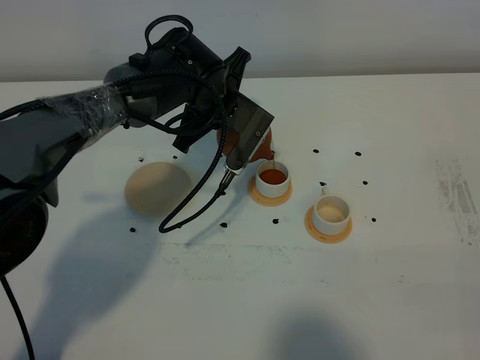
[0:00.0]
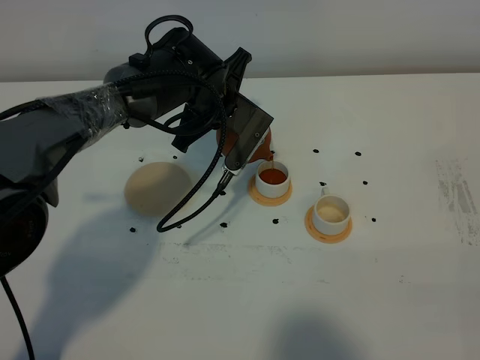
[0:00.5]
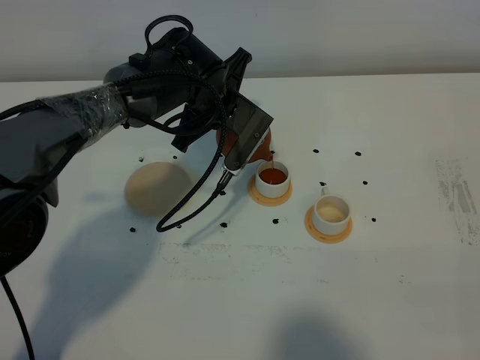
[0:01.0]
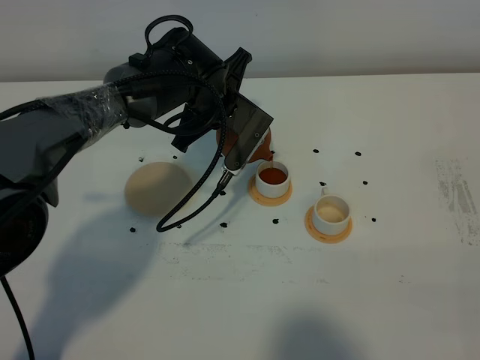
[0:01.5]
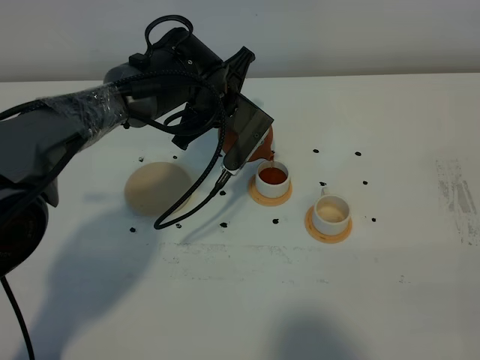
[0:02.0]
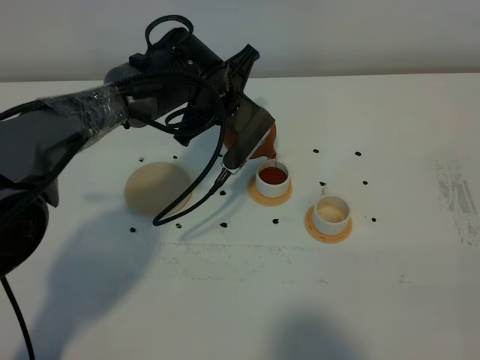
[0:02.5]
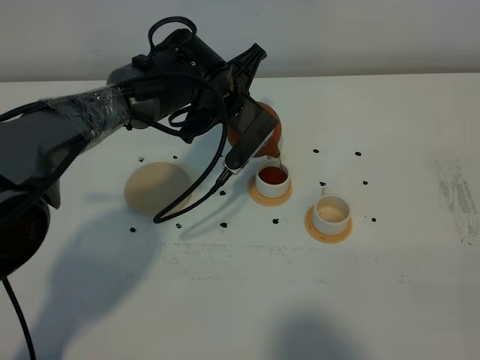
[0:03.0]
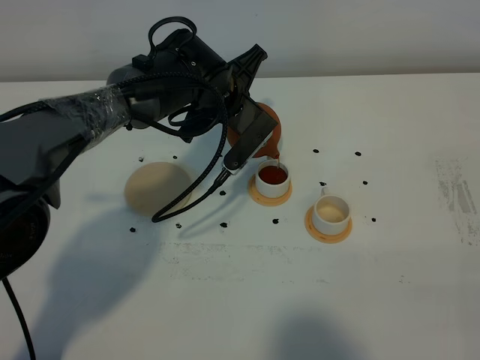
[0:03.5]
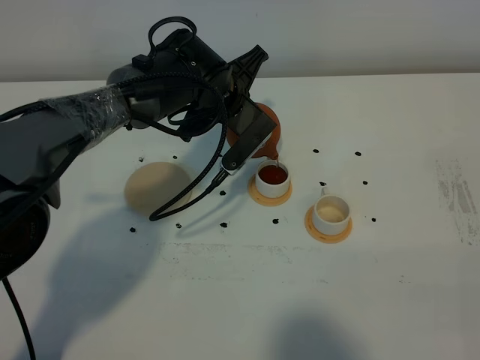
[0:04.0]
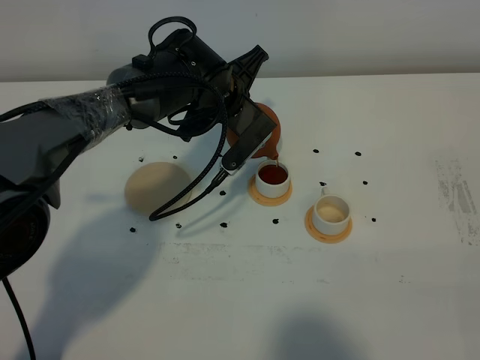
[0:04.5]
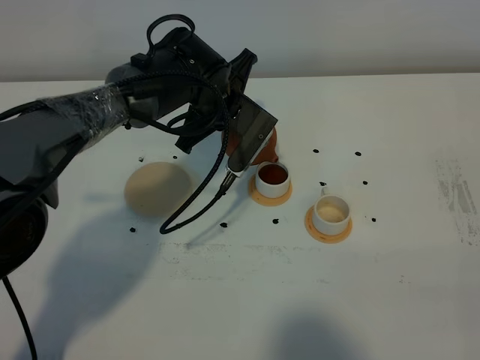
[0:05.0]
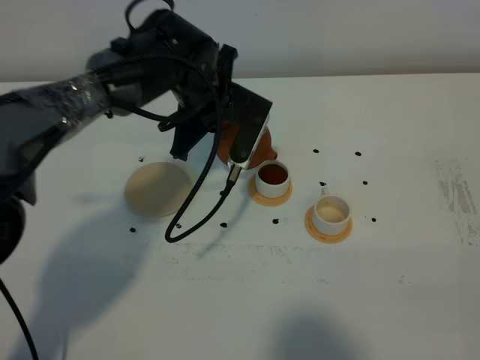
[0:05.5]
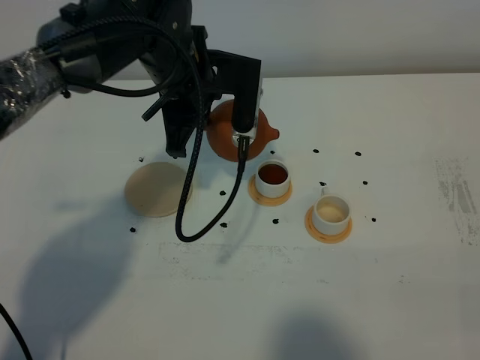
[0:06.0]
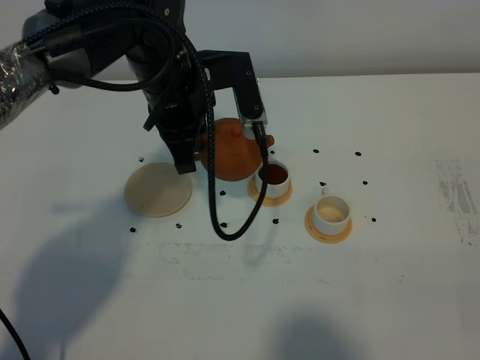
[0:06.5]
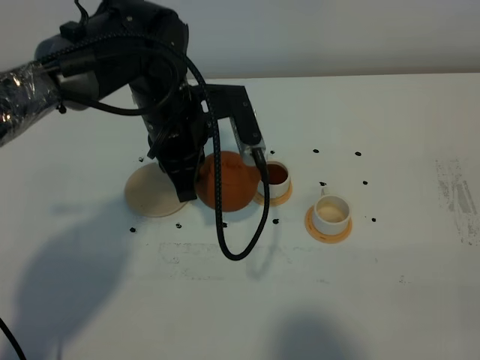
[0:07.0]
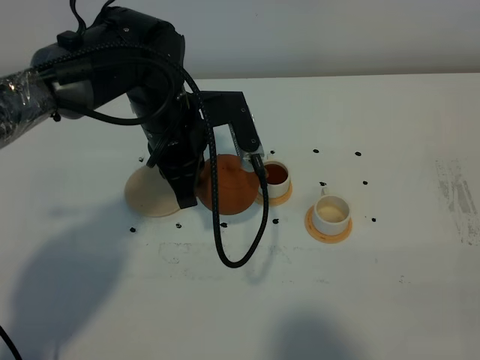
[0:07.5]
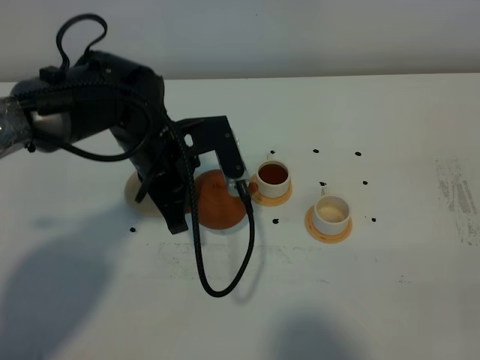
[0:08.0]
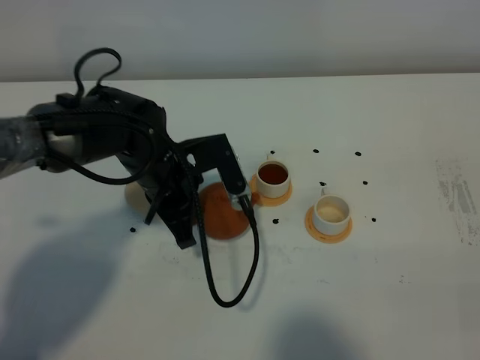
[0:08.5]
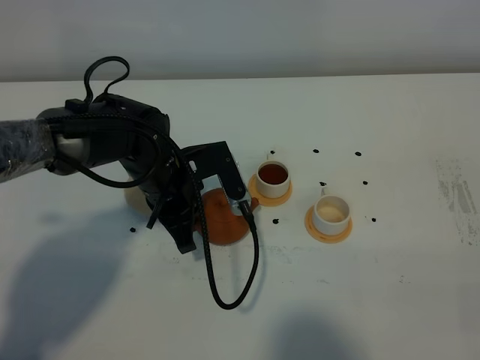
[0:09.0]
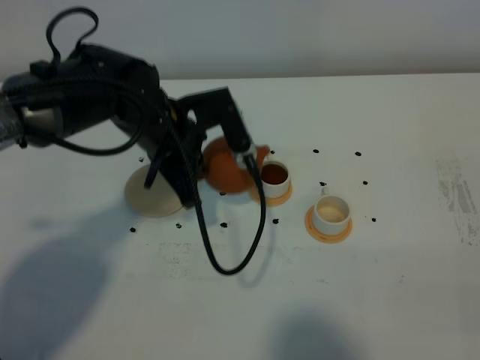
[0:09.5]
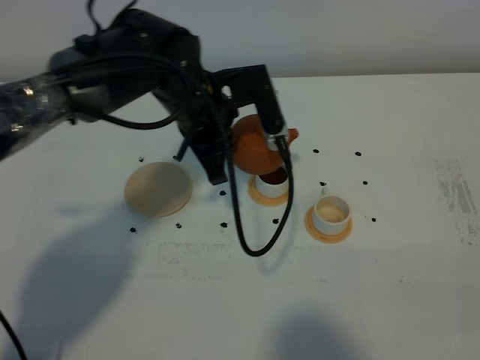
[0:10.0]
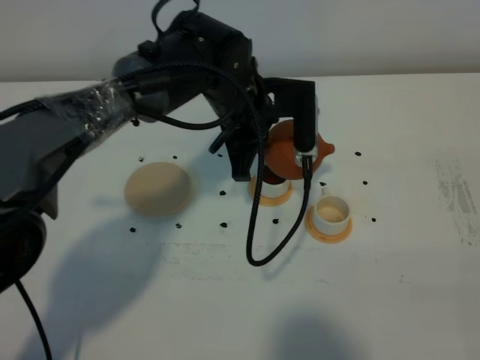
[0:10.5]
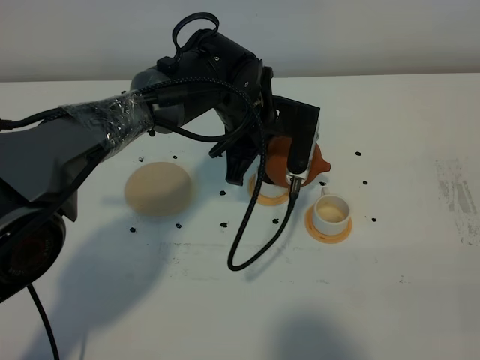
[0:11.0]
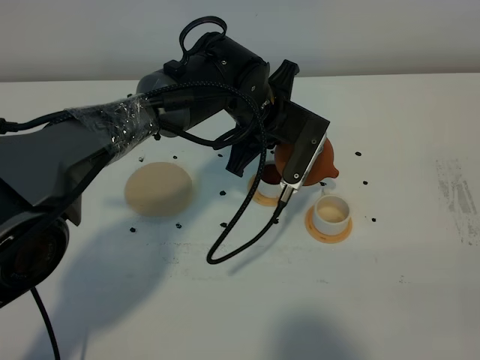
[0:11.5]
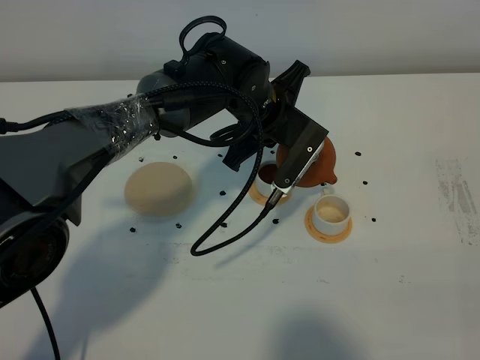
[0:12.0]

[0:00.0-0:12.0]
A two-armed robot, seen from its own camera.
Task of the whole recording: grasp the brown teapot and pour the tea into the two white teacups one by one, put the brown teapot back in its original place.
0:00.0 to 0:02.0: Both grippers stay about where they are.
0:02.0 to 0:04.0: There are only small adjustments of the grippers.
0:04.0 to 0:06.0: The left gripper shifts some 5 cm upward.
0:06.0 to 0:08.0: The left gripper moves downward and backward, about 10 cm.
0:08.0 to 0:10.0: The left gripper shifts some 5 cm to the right.
0:10.0 to 0:12.0: The left gripper shifts roughly 5 cm to the right.

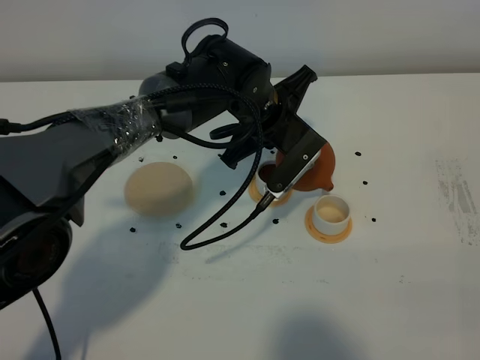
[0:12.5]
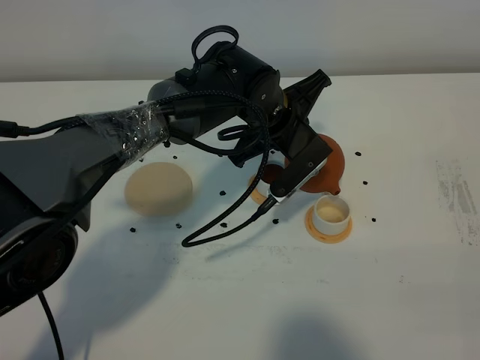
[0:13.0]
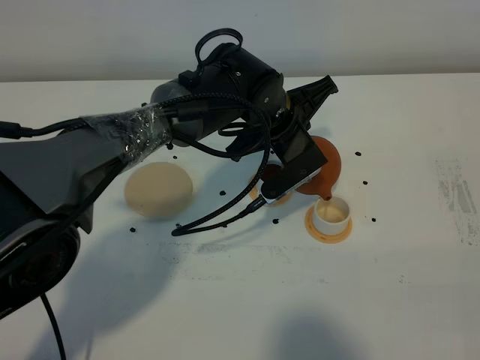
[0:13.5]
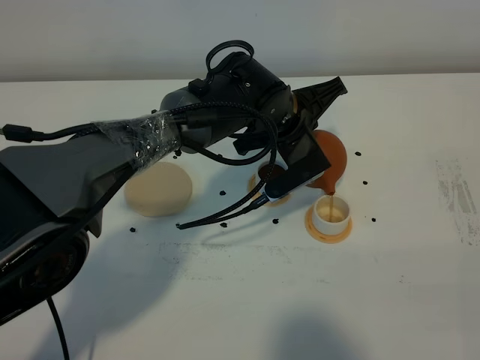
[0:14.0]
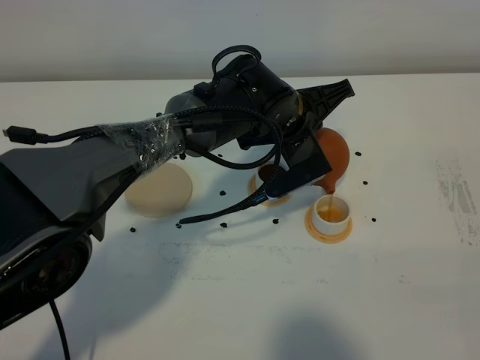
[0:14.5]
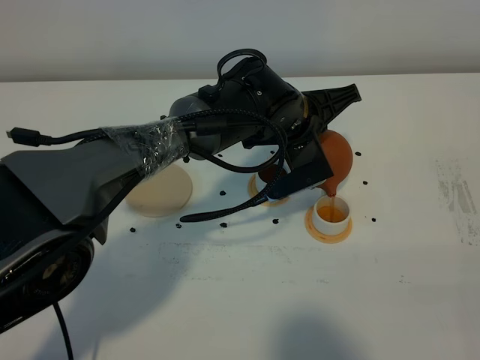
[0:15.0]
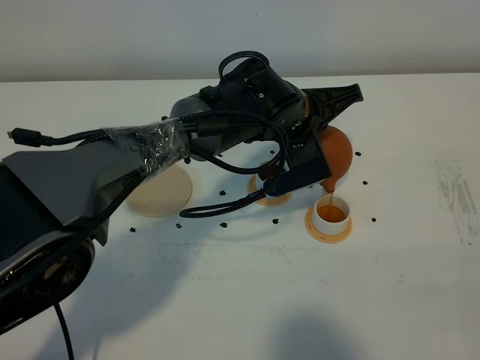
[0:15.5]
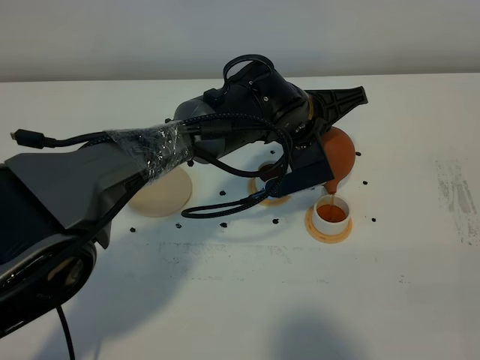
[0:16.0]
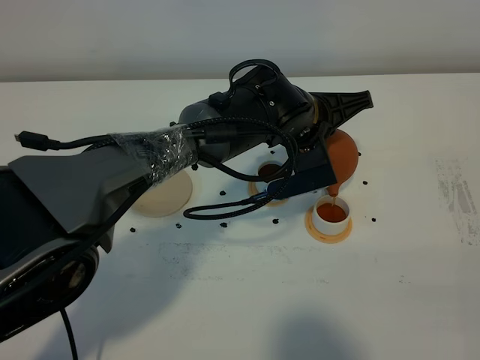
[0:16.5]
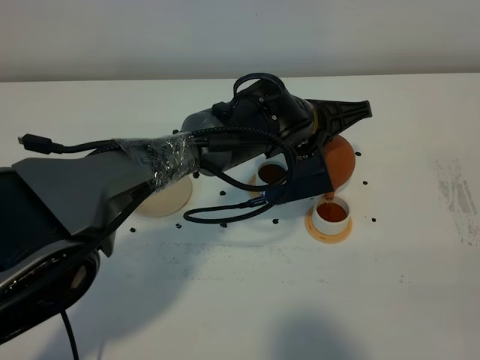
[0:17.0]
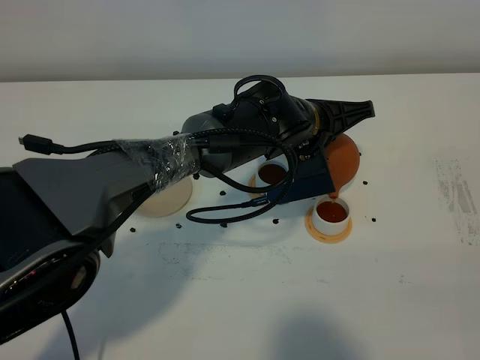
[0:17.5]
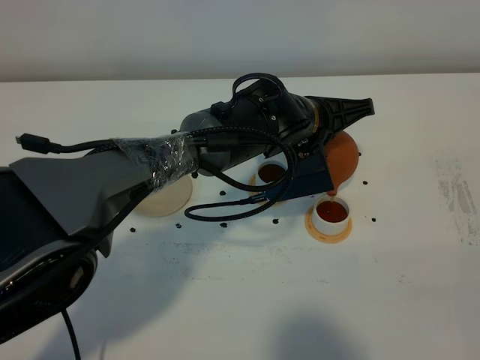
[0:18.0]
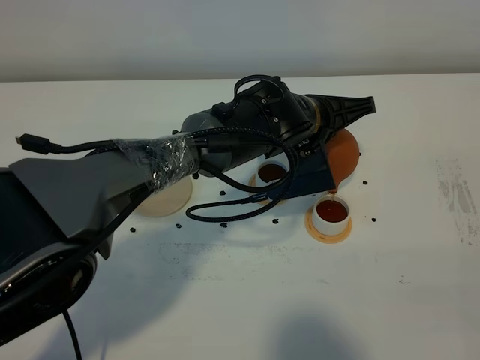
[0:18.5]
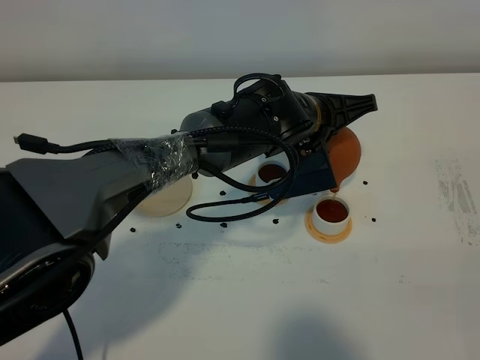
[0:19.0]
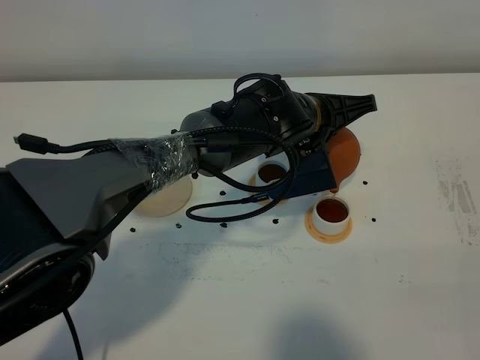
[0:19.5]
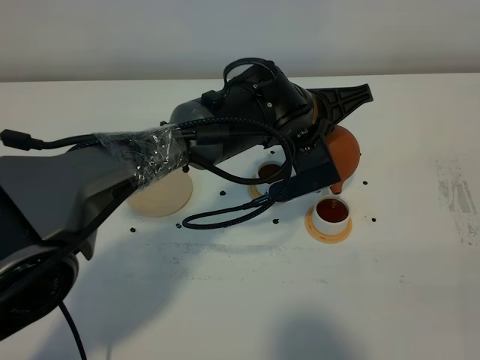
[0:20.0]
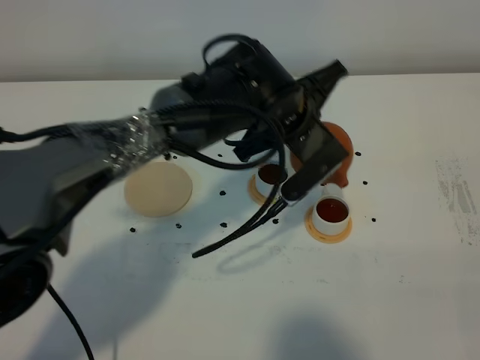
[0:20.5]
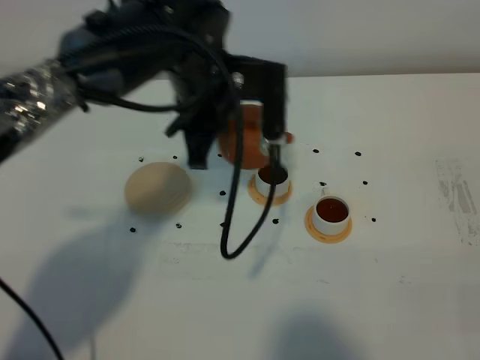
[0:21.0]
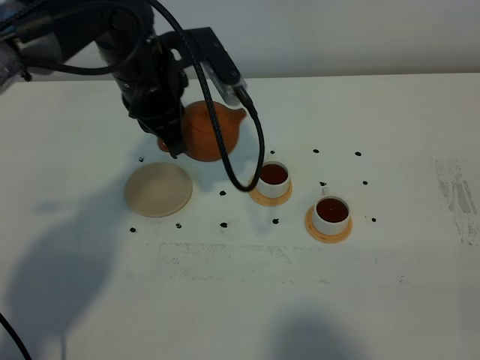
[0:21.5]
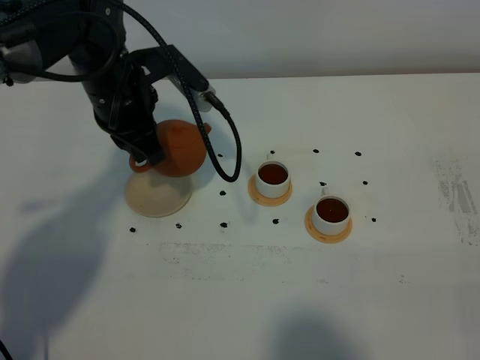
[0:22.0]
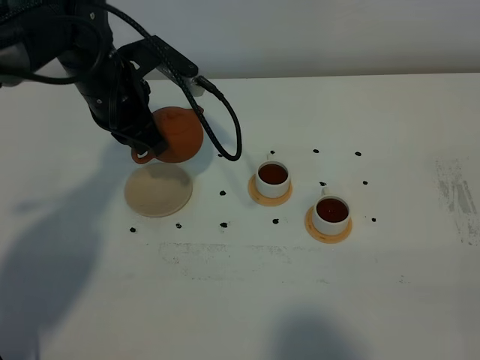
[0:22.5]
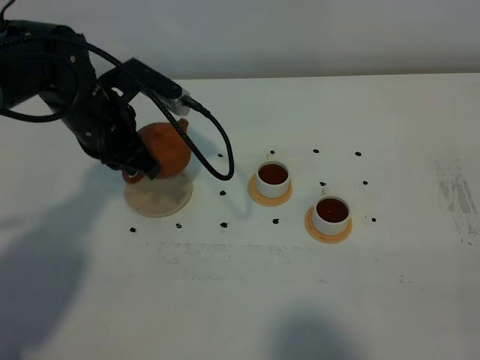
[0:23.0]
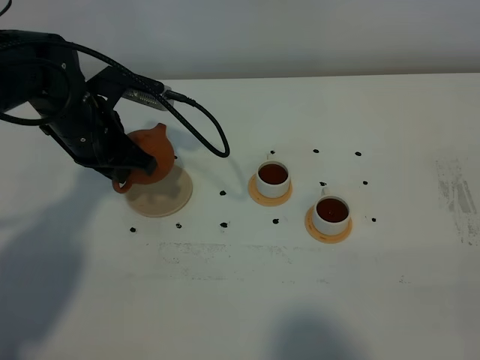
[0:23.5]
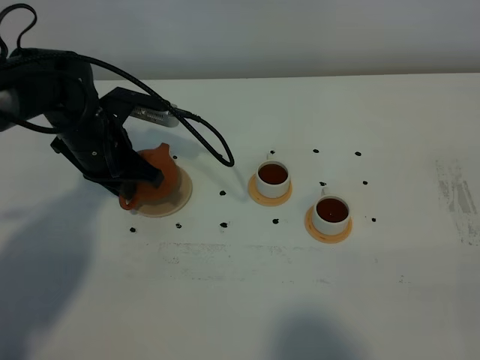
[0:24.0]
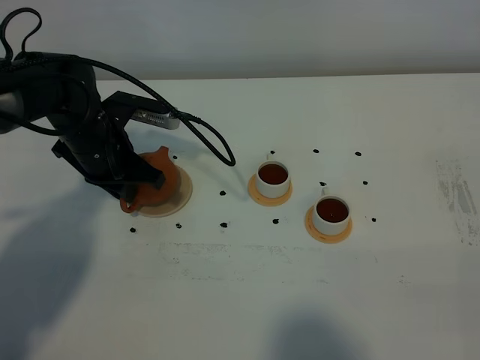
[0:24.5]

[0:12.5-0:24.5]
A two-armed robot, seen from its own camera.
Task of the whole recording: grasp the brown teapot and pour the tea into the two white teacups one by one, put the brown teapot back in its original place.
Step, 0:12.5 to 0:20.0: Pour tea into the teacup with the left gripper.
0:14.5 to 0:16.5: The grippers move only a little.
0:16.5 to 0:18.5: Both grippers stay about where they are.
0:18.5 to 0:20.5: The left gripper moves roughly 5 cm.
0:20.5 to 0:22.5: The left gripper heads to the left, covering about 20 cm.
0:22.5 to 0:24.5: The left gripper travels downward by about 5 cm.

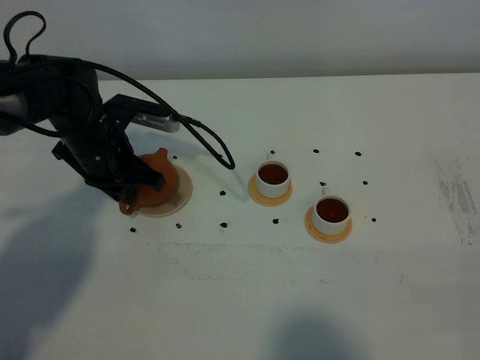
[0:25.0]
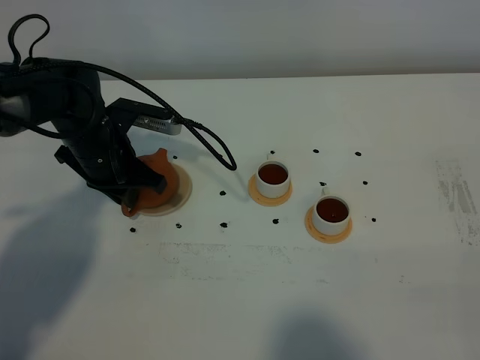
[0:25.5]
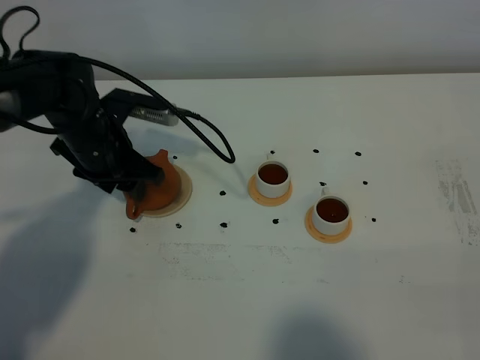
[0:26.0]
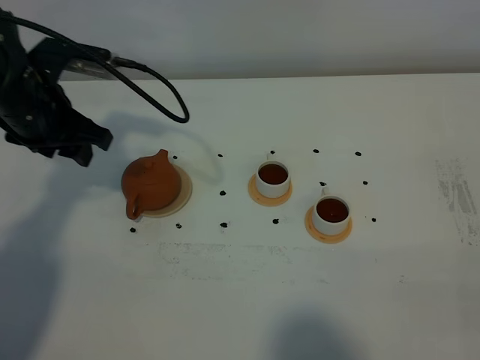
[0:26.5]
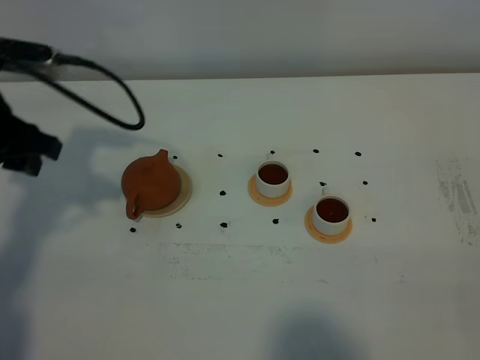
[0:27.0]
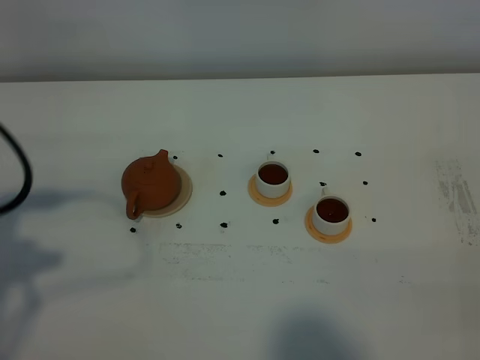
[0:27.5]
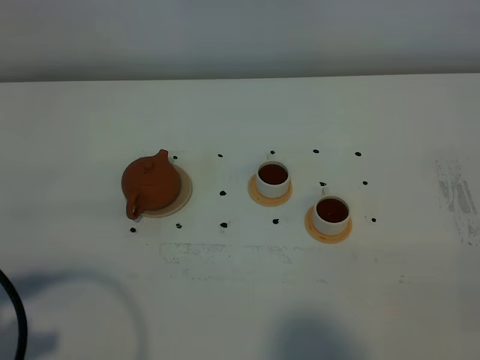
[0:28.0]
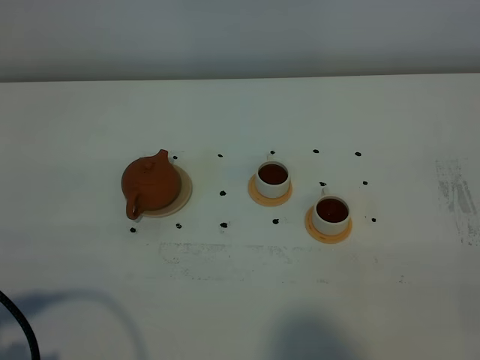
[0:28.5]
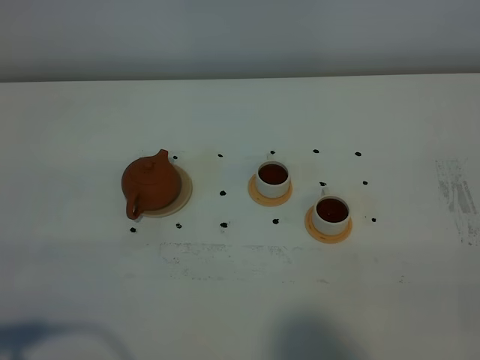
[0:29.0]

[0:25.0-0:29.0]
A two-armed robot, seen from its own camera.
Task of the whole recording: grasp the brown teapot and pour the tea into the two white teacups one by one, put the brown teapot back in its original place.
0:25.0 to 0:27.0: The left gripper moves upward, to the left and backward, approximately 15 cm, and opens up.
0:27.0 to 0:29.0: The left gripper heads backward, covering roughly 30 cm.
